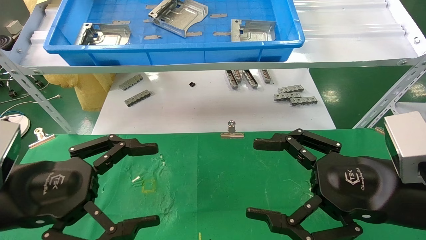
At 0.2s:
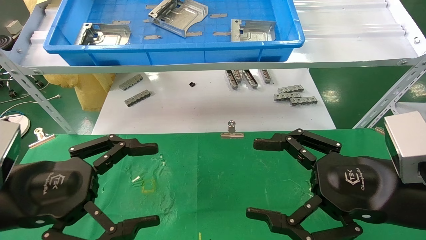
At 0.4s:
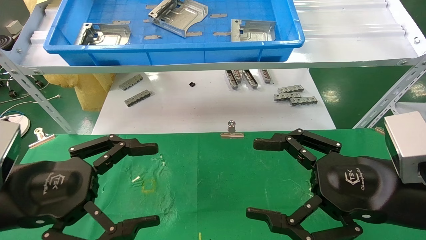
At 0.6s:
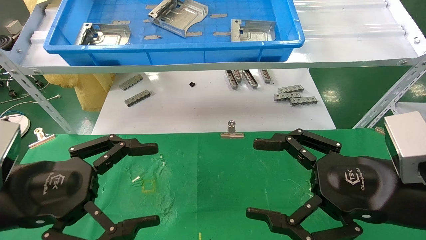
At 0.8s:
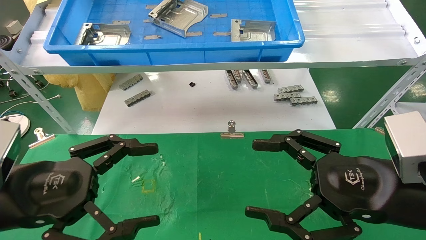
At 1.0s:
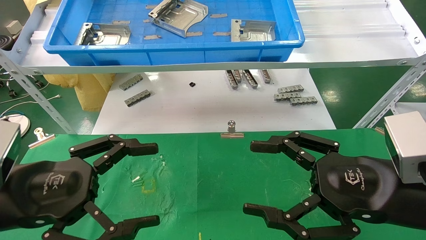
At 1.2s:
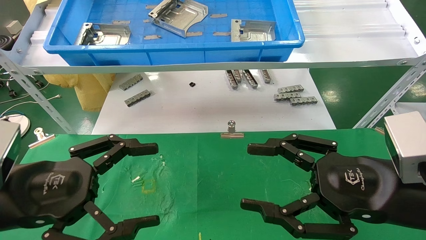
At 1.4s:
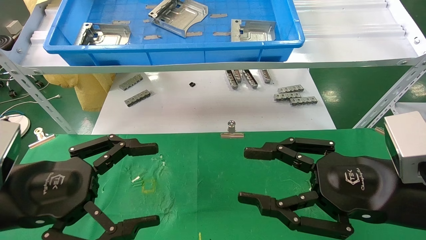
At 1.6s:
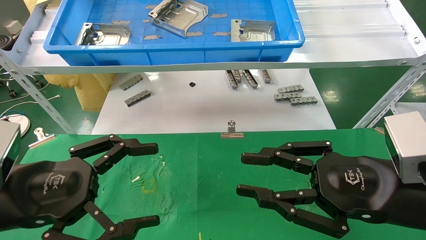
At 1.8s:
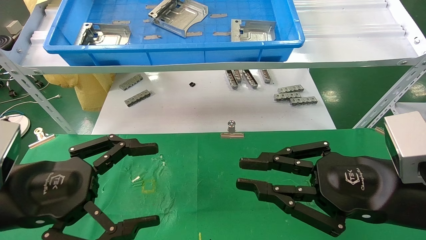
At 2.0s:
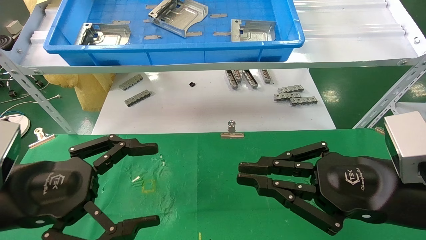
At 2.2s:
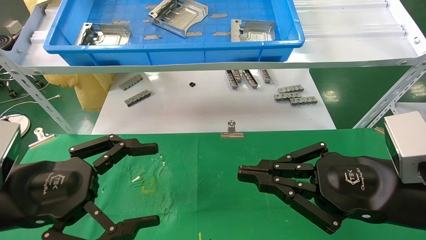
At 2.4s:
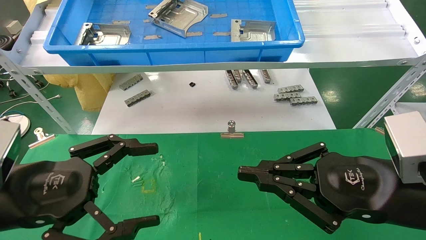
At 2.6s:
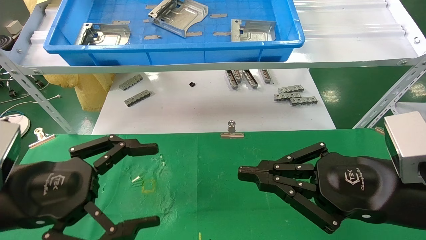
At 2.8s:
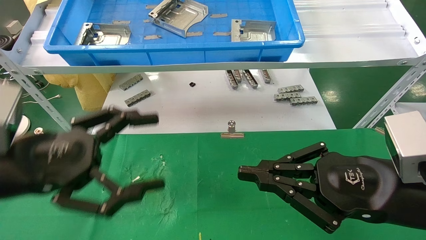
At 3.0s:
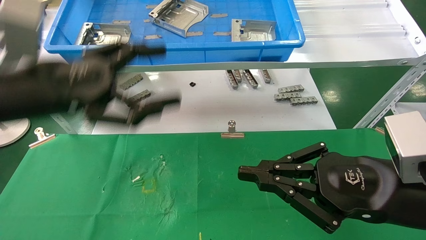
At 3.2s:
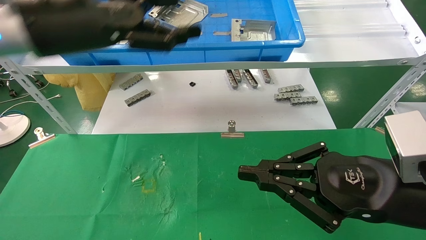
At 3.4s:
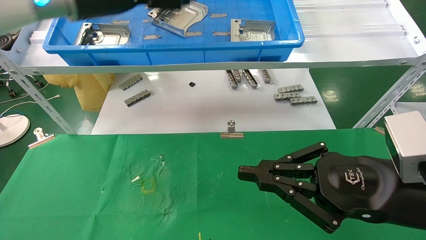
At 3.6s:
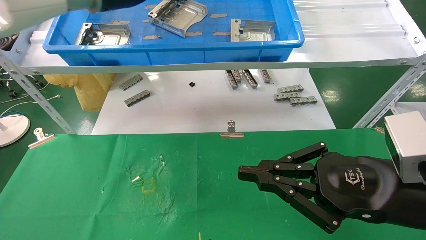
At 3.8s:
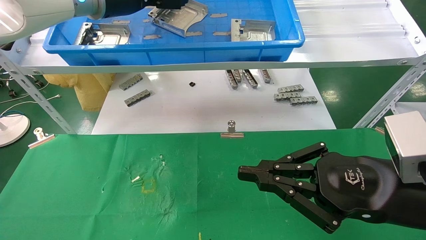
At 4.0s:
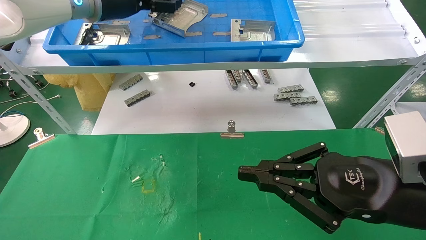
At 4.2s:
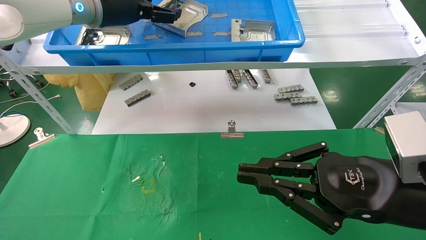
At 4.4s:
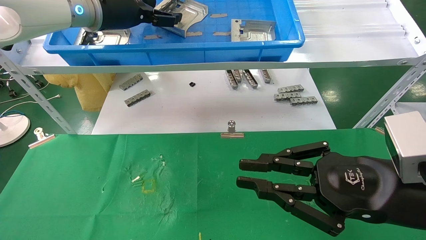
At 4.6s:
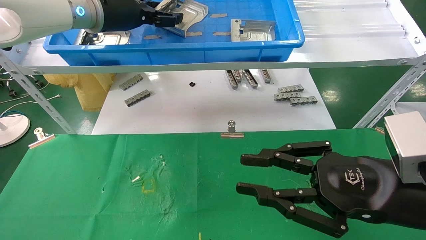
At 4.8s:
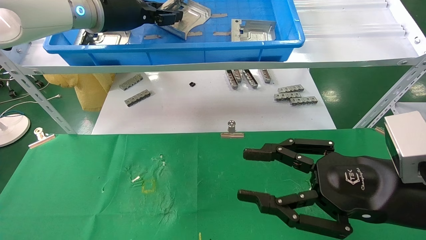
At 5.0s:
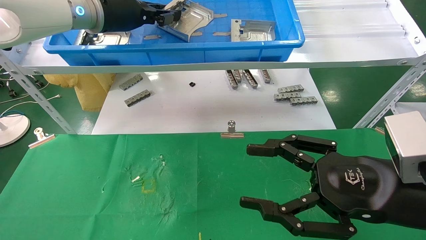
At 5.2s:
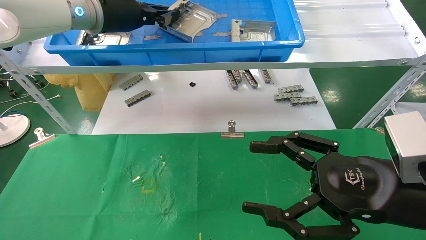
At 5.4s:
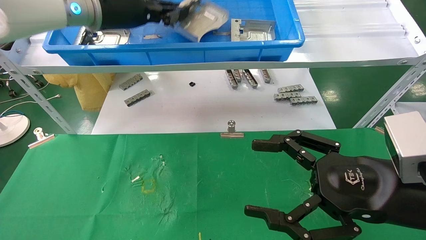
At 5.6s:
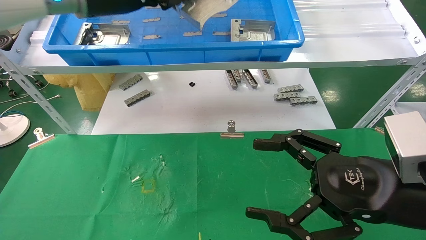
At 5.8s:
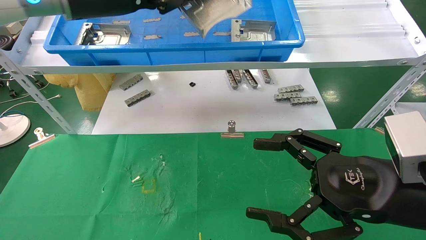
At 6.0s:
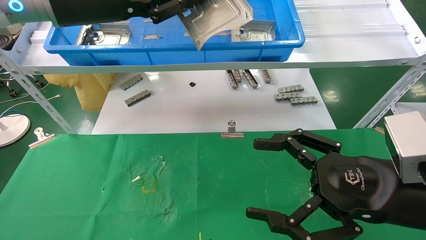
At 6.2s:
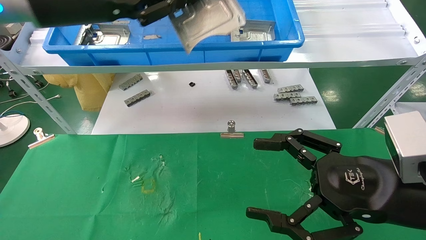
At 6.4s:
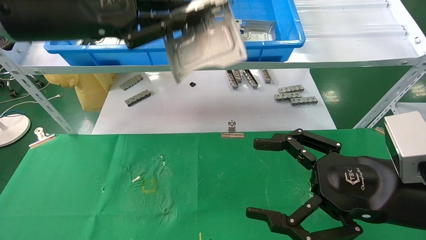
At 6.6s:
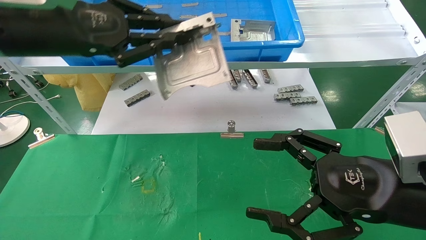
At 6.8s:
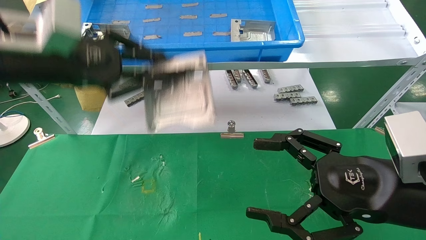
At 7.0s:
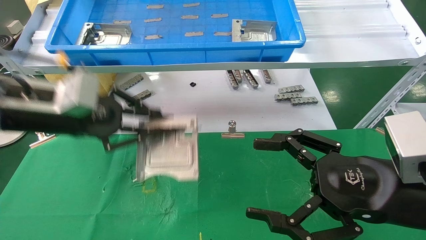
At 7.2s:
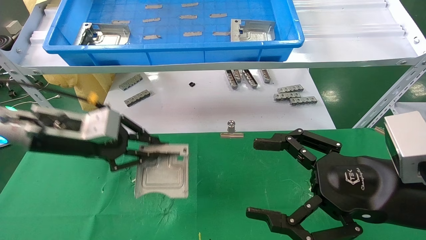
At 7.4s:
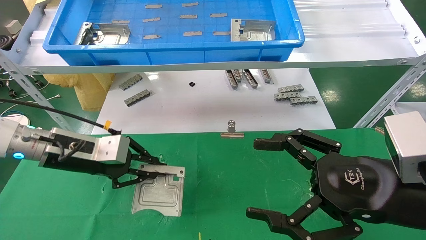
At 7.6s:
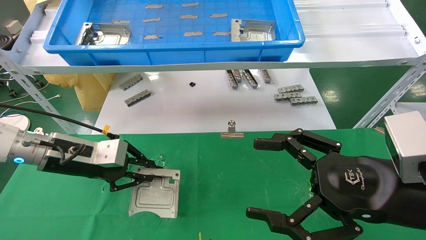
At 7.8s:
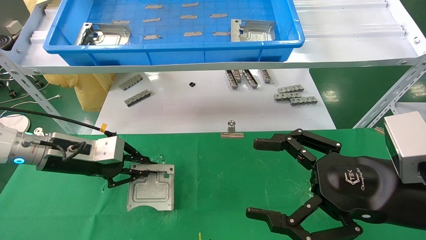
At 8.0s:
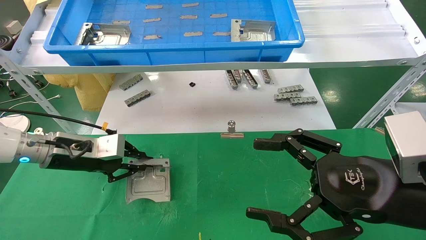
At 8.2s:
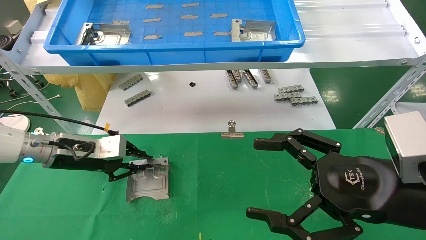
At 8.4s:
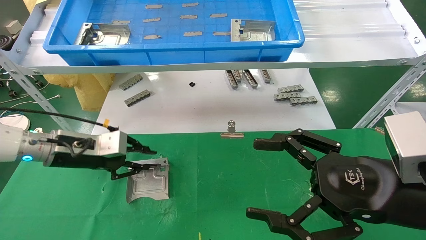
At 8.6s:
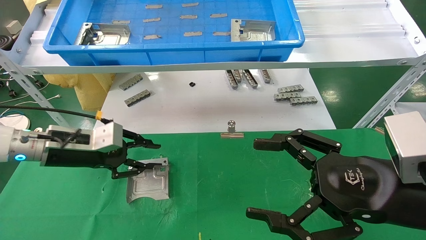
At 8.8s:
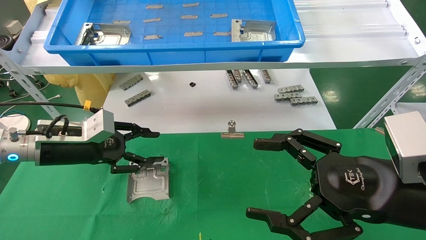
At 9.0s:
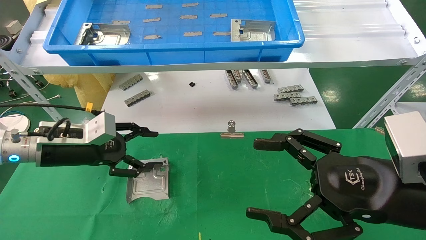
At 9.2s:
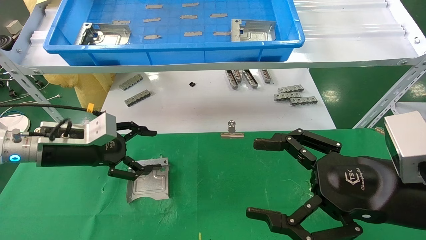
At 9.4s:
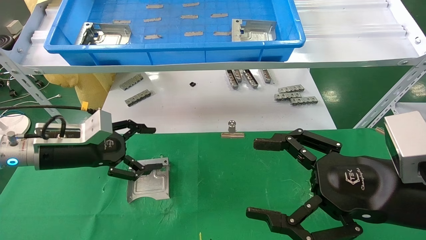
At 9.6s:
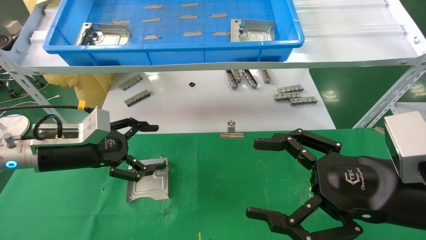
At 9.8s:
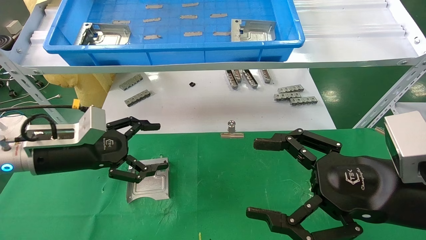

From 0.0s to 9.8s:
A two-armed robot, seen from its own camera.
Task of the whole recording: use the mechanical arm to pick up the parts and place them on the table.
Step, from 2.8s to 5.2s: Pick up the hard drive bracket from the feeding area.
Step, from 5.4s to 8.6s: Place the hard drive bracket into the box.
From 0.0s to 1.4s: Neither gripper changes place.
From 1.4s to 2.8s: The right gripper closes. The left gripper shifts approximately 5 cm upward.
From 2.8s to 4.2s: The left gripper is displaced forward and upward by about 25 cm.
From 4.2s to 5.6s: The left gripper shifts about 5 cm backward, and closes its fingers. The right gripper opens.
From 5.6s to 7.0s: The left gripper moves downward, to the left and backward, about 20 cm.
From 7.0s to 8.4s: The left gripper travels downward and forward by approximately 15 cm.
From 8.4s to 9.8s: The left gripper opens its fingers.

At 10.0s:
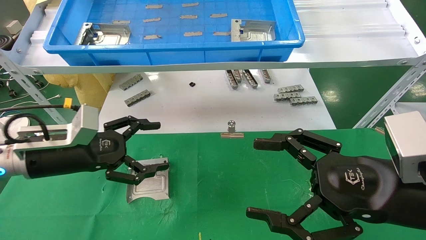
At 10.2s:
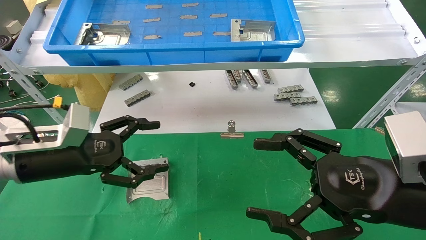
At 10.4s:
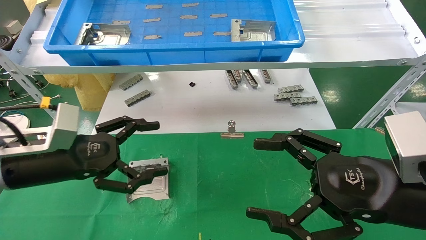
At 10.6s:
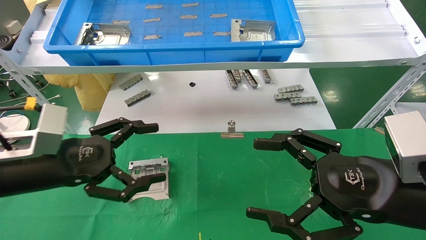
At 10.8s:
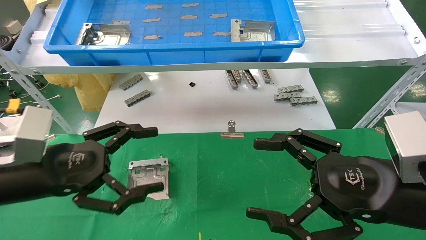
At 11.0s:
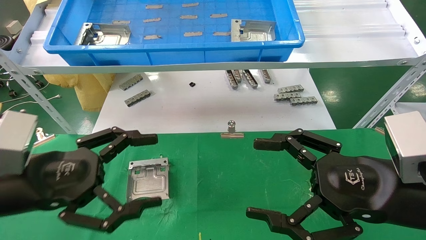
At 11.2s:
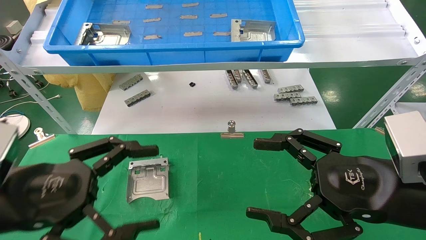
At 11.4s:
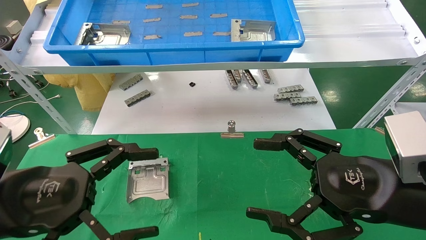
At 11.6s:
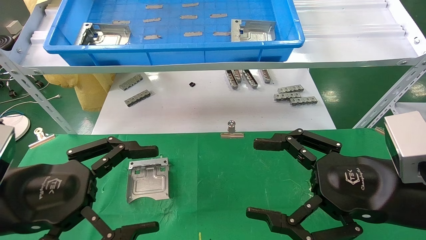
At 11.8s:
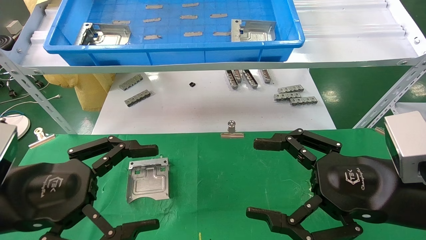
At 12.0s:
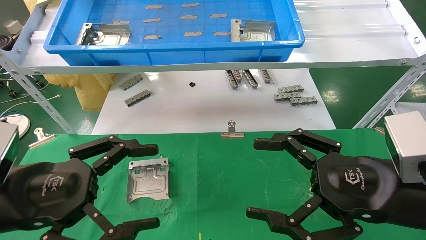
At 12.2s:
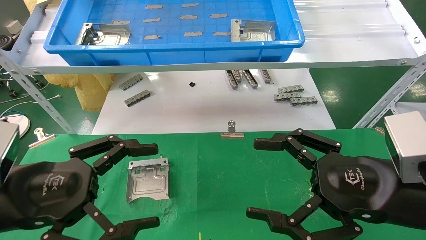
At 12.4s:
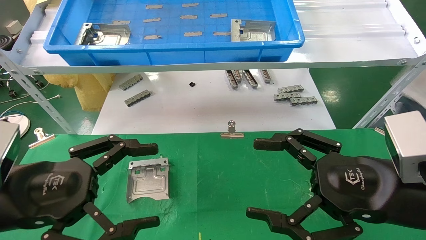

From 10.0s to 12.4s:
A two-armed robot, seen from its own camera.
Task of the whole recording: use the mechanical arm to pick up the parts and place them on the table.
From 10.0s to 11.2s: The left gripper goes some 15 cm backward.
From 11.2s to 12.4s: Both grippers stay put.

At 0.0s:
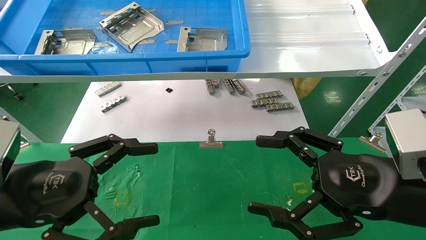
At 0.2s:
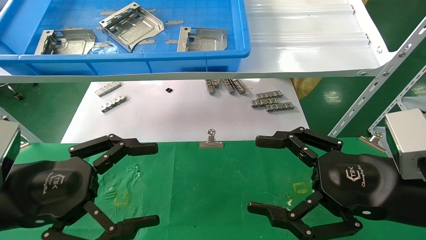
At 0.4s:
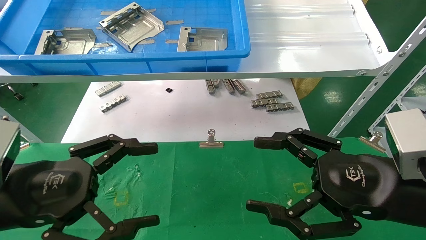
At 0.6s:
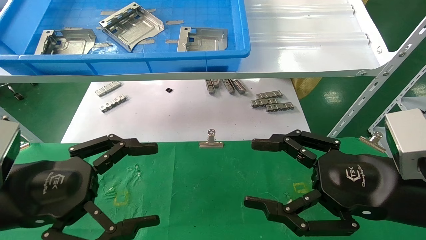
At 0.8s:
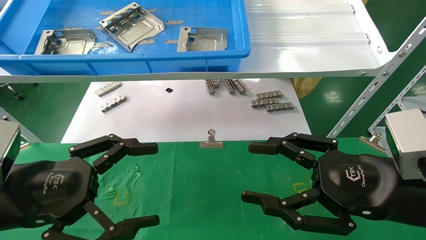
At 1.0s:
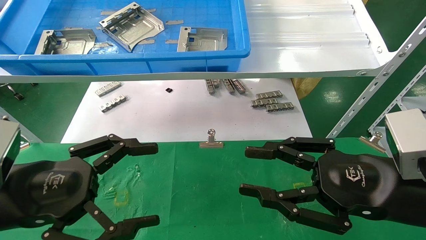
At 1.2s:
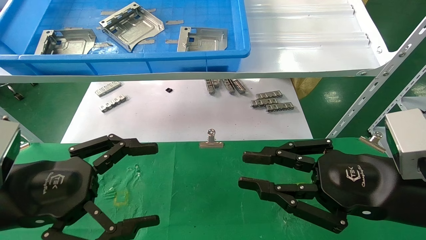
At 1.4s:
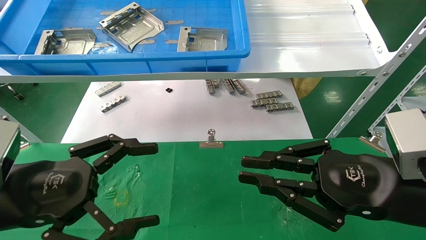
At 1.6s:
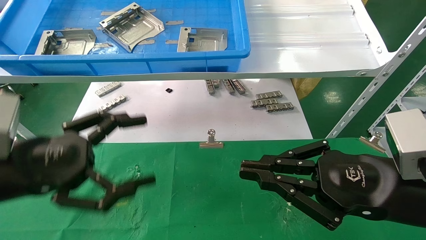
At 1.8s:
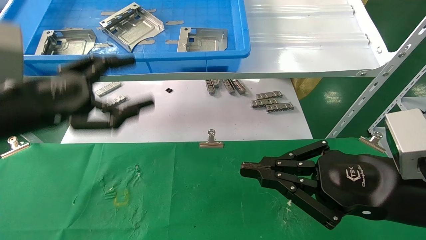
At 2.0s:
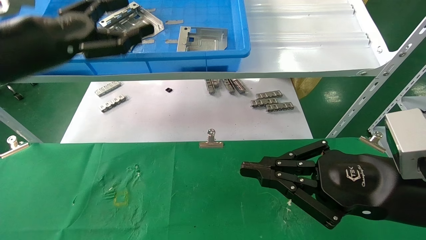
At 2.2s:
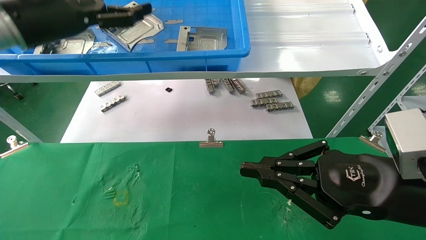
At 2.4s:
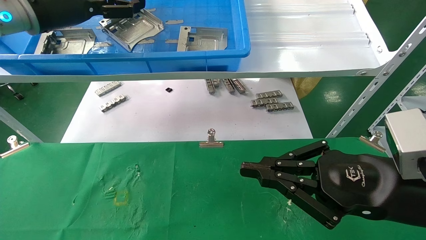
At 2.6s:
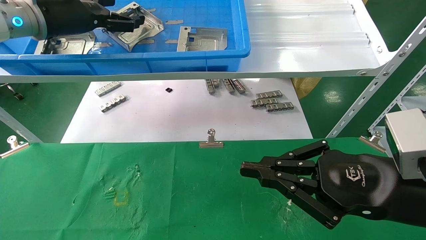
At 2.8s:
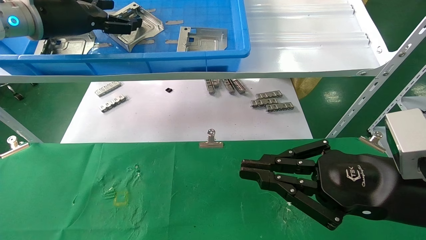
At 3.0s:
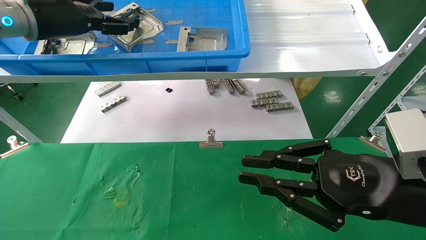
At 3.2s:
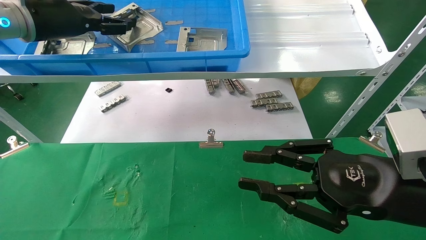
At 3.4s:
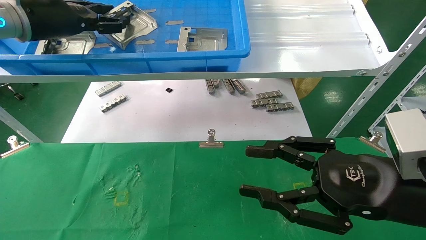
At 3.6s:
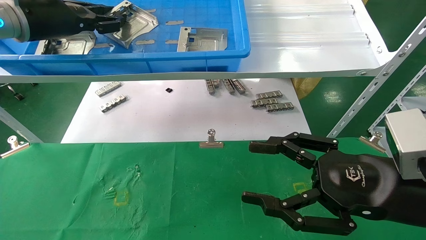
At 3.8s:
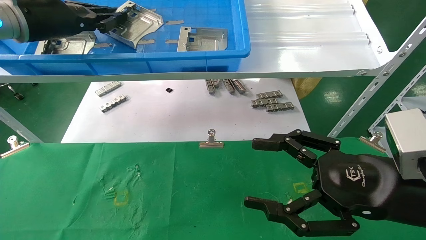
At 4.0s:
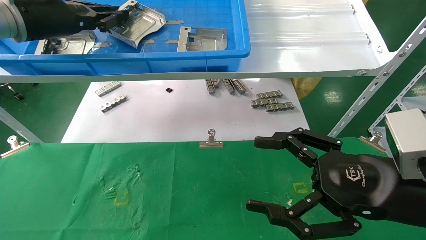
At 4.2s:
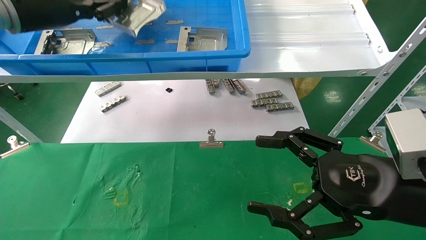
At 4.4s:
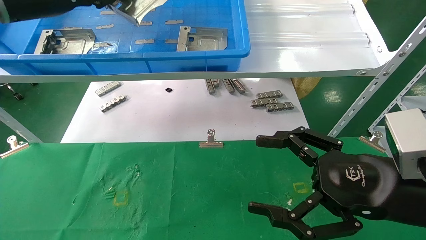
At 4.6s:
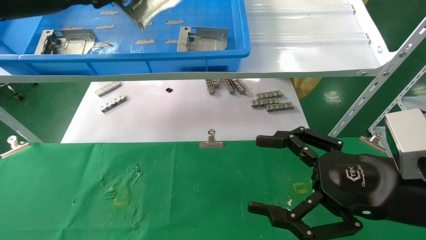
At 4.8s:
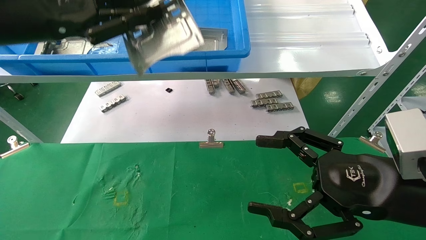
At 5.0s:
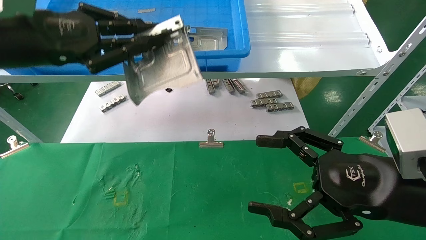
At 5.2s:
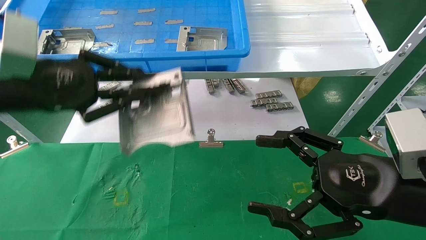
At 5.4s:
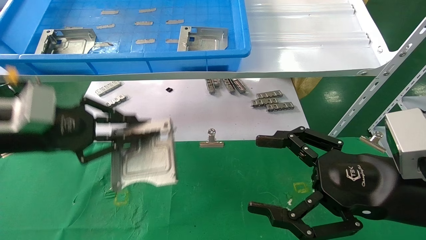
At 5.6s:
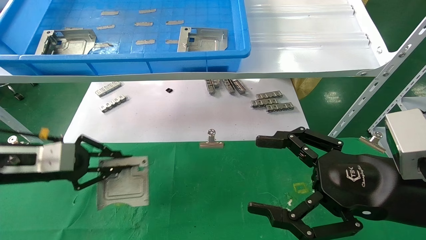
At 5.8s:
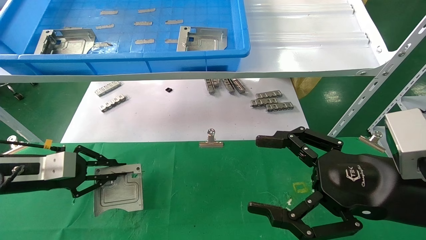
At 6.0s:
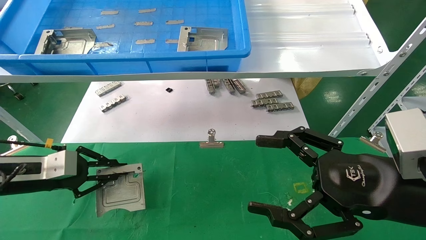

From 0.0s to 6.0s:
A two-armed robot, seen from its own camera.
Task of the whole recording: use the mechanical arm to pick up the parts and place them on the table.
Step, from 1.8s to 3.8s: Pick up the hard drive bracket from the feeding area.
From 0.0s to 1.6s: The right gripper closes up; the left gripper changes place by roughly 5 cm.
From 1.6s to 3.0s: The left gripper shifts some 25 cm forward and upward.
From 3.0s to 4.4s: The right gripper opens up, while the left gripper changes place by roughly 5 cm, and closes up.
From 4.4s to 6.0s: The left gripper is displaced downward by some 30 cm.
